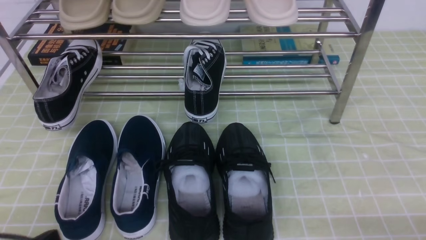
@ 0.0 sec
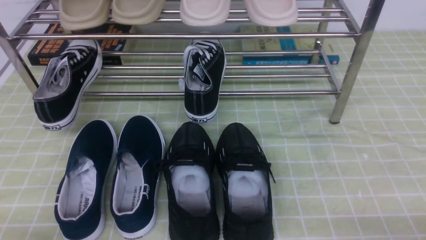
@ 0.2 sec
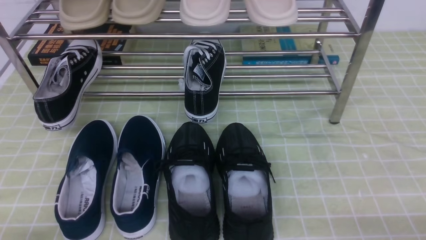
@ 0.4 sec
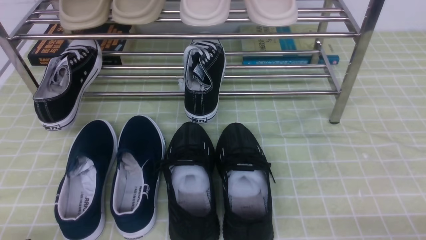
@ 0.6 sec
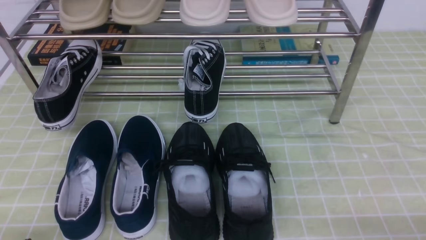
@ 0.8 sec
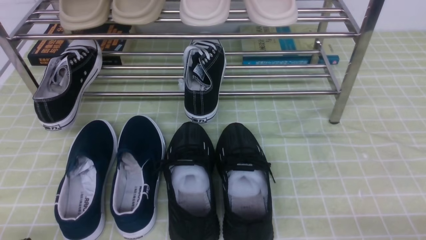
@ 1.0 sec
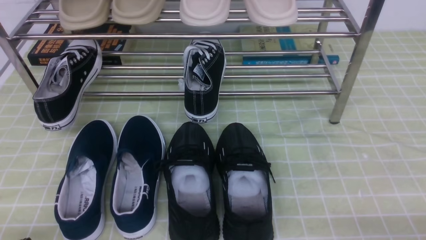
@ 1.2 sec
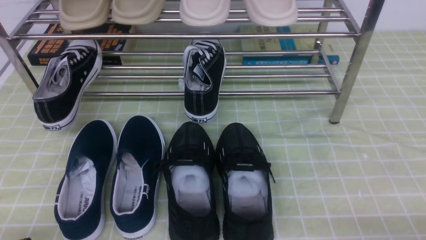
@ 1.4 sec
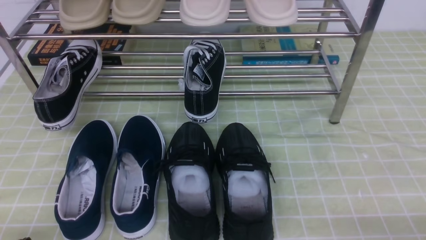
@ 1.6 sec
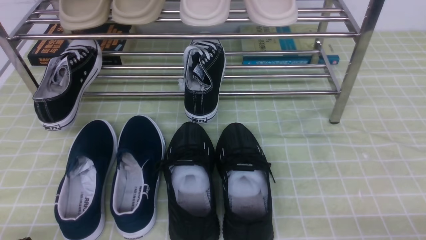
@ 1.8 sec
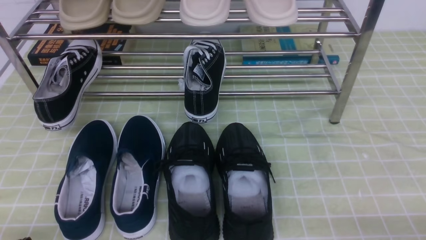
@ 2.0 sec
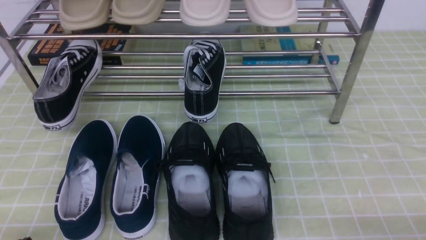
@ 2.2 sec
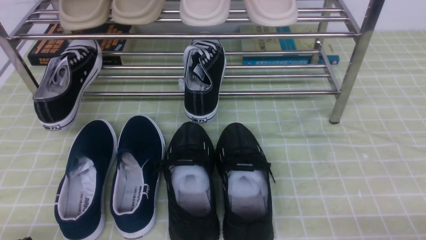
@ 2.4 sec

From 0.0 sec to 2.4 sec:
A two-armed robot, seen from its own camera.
From 1.2 sec to 2.4 sec: The two grippers keep their place.
